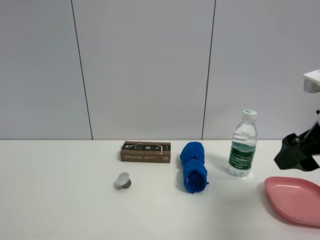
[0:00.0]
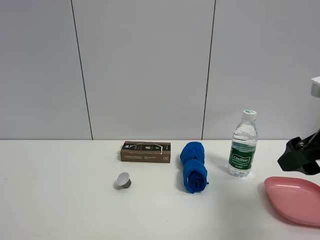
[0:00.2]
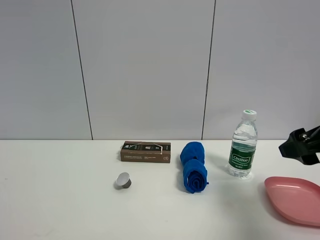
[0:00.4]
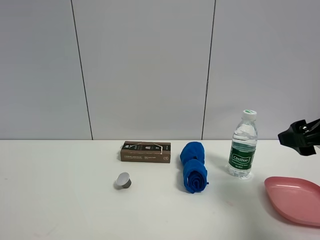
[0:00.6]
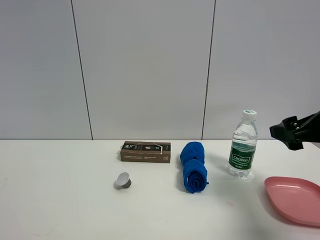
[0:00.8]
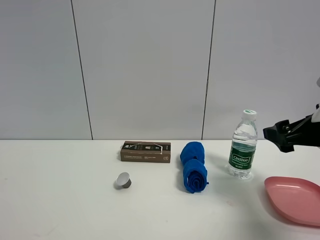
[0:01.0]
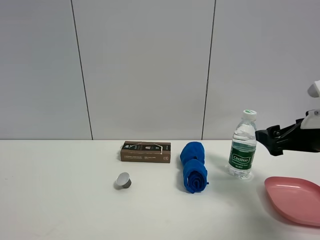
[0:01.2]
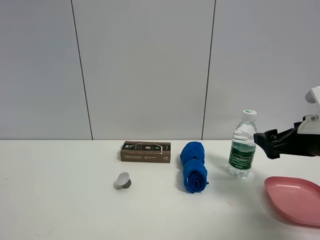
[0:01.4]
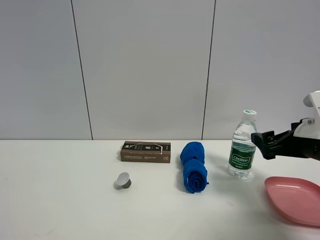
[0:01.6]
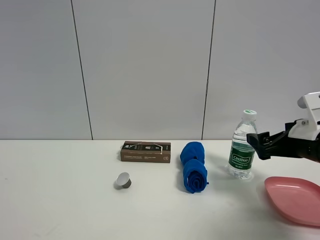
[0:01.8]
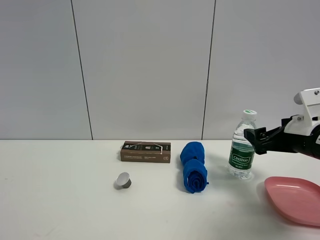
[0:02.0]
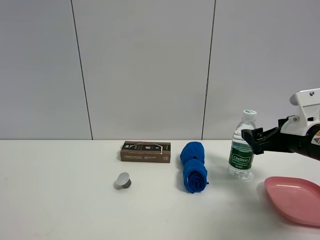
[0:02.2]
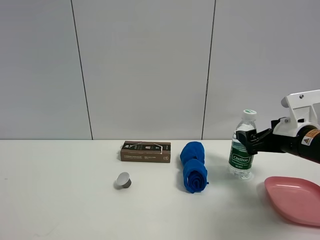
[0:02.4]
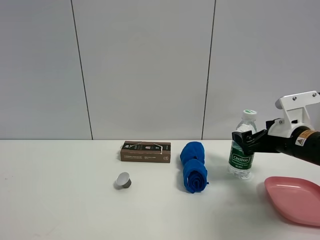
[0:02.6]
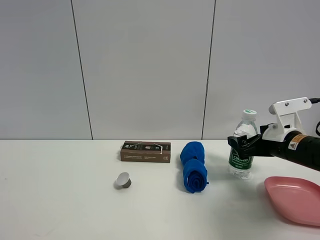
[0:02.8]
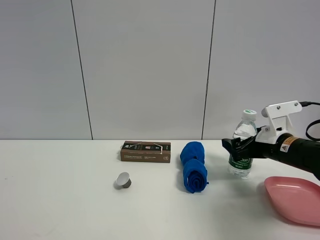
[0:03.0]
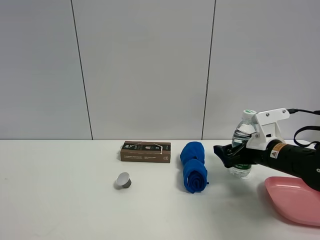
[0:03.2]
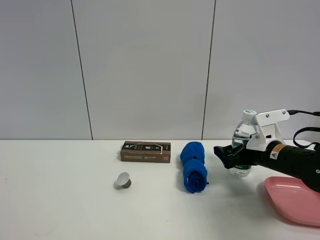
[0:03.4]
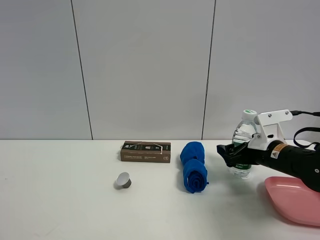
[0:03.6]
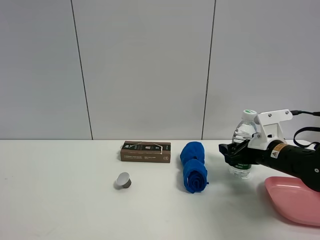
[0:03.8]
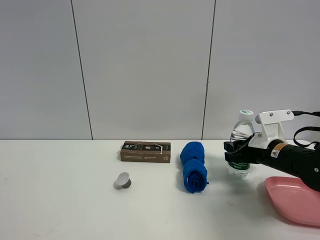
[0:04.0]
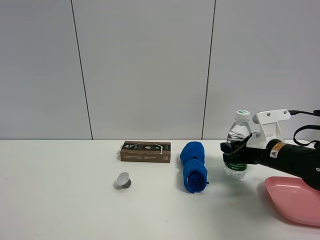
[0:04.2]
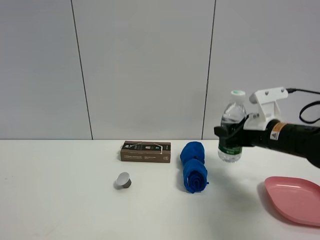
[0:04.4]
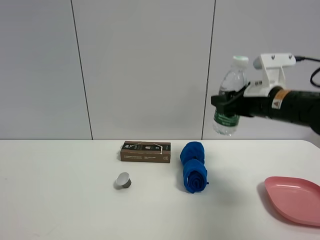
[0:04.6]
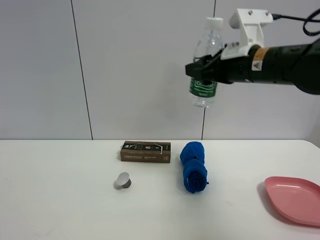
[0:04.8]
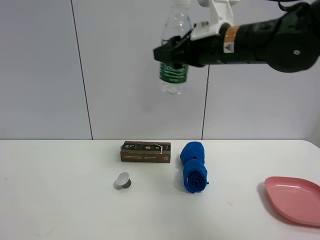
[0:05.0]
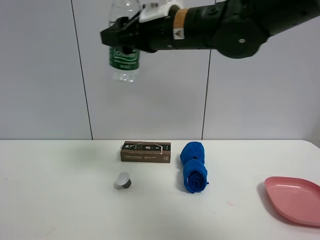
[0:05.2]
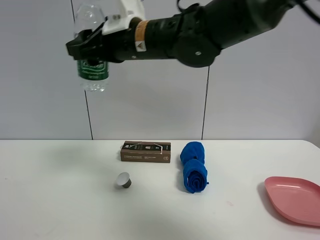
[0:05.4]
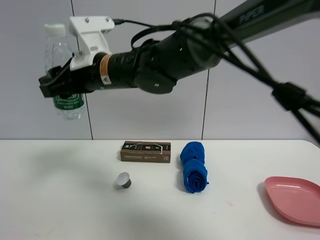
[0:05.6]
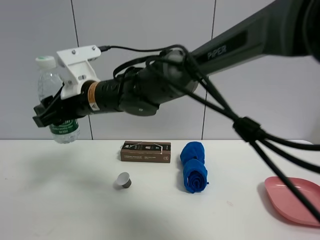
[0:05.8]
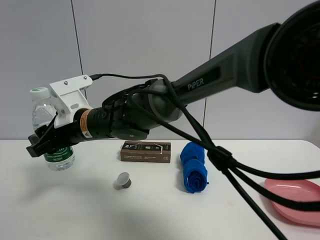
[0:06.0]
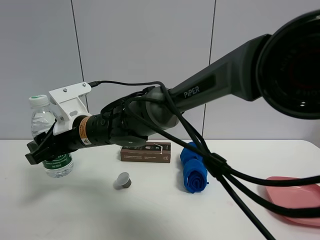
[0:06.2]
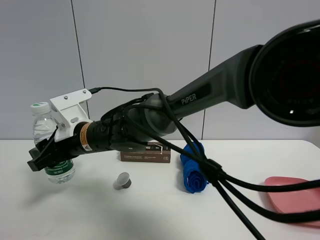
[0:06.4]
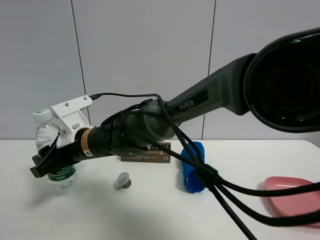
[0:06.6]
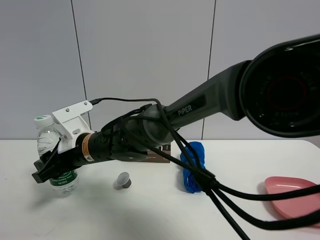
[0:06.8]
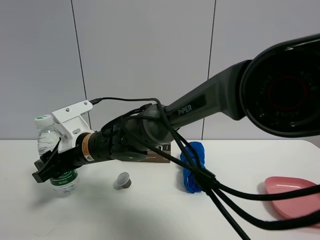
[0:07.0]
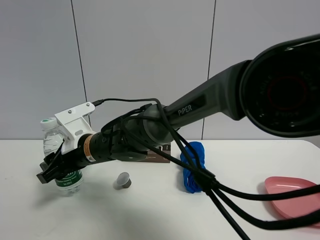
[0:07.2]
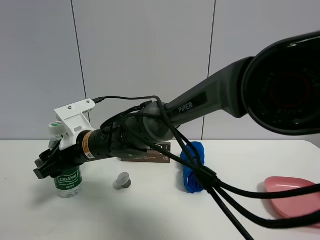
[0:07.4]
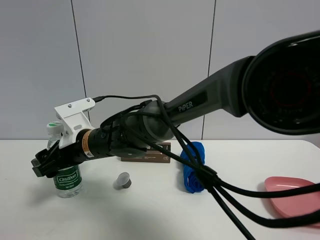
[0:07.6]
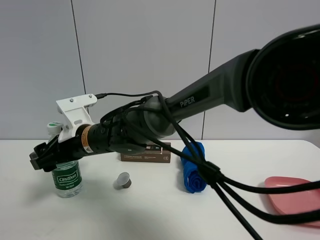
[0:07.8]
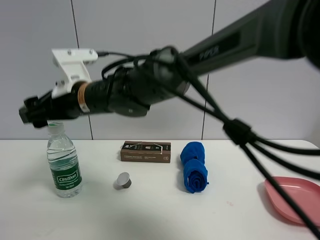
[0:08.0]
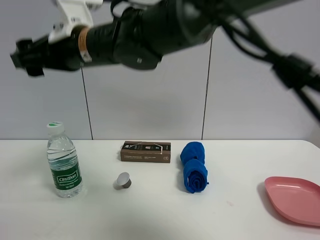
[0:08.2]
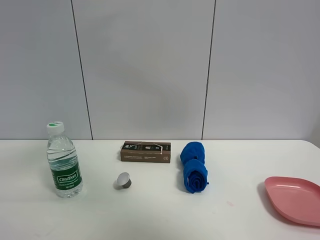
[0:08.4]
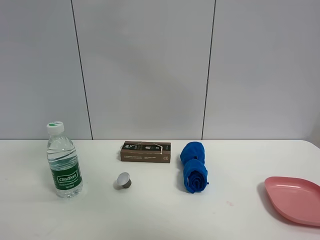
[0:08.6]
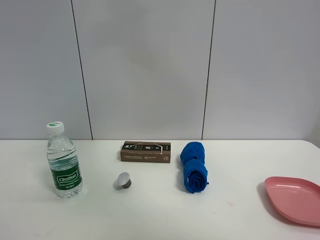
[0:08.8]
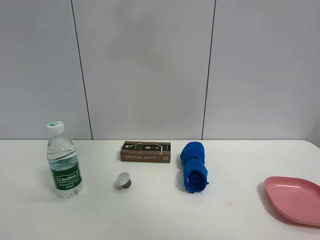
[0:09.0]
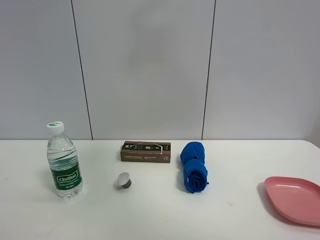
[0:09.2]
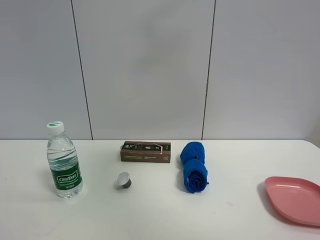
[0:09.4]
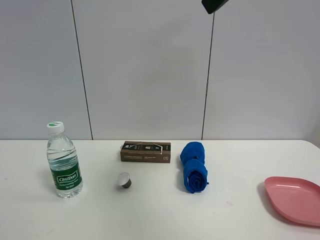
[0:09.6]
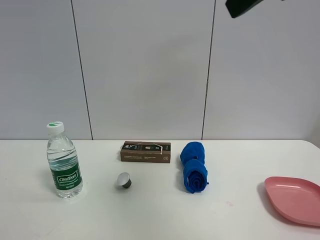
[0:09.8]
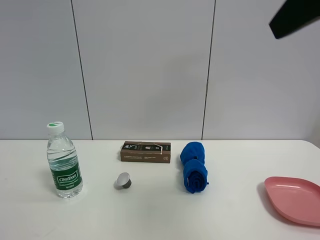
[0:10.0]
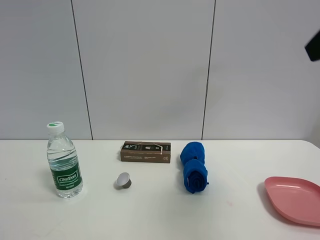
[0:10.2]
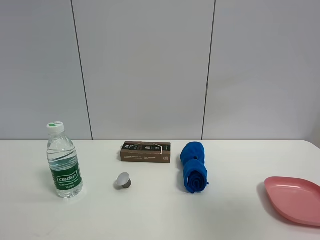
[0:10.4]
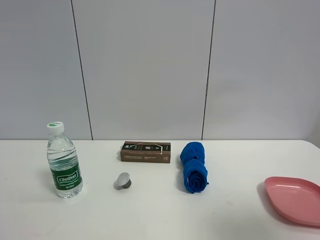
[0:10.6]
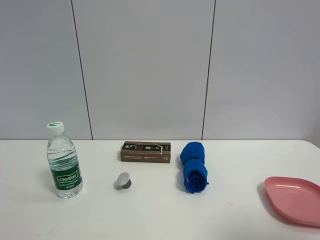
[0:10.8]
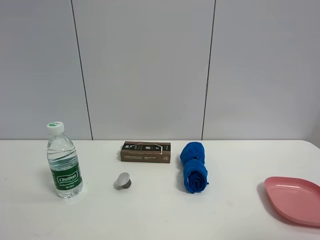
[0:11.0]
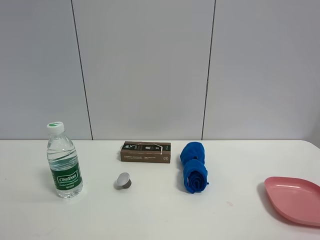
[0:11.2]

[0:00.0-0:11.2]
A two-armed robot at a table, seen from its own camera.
Task of the whole recording: the gripper move the object.
Step, 0:00.0 to 0:03.8: Grasp the YiBao mineral water with the right gripper.
Step, 0:04.0 to 0:07.8: Place the YiBao mineral water on the table with the right gripper.
0:00.0 to 0:01.6: The right gripper heads downward and forward, covering about 10 cm.
0:01.6 to 0:03.2: The right gripper goes roughly 10 cm forward and downward.
0:03.2 to 0:04.8: The right gripper travels upward and to the left by about 20 cm, and closes up.
0:04.8 to 0:06.4: The right gripper goes approximately 30 cm to the left.
0:06.4 to 0:08.0: The right gripper opens its fingers.
0:08.0 to 0:09.6: The right gripper heads upward, to the right and backward, covering approximately 40 cm.
0:09.6 to 0:11.2: The right gripper goes approximately 30 cm backward, to the right and downward.

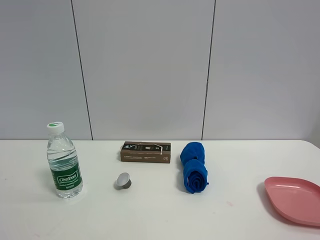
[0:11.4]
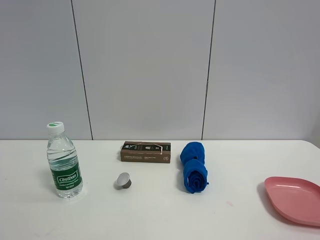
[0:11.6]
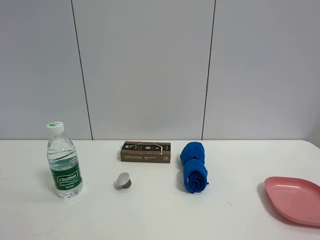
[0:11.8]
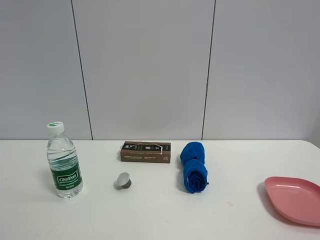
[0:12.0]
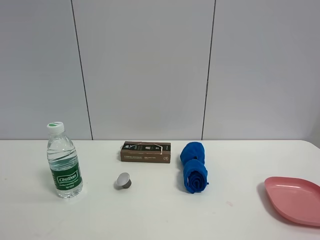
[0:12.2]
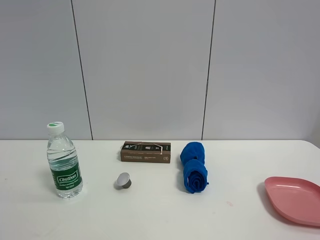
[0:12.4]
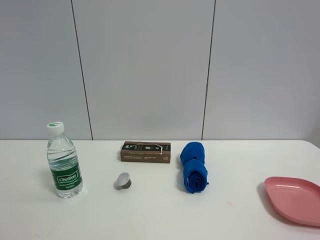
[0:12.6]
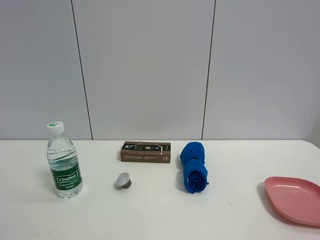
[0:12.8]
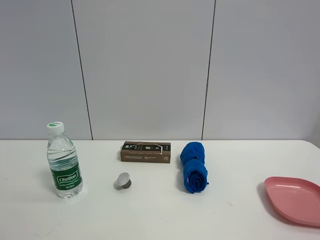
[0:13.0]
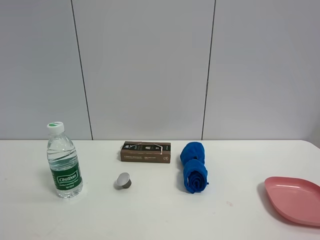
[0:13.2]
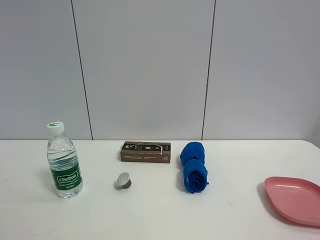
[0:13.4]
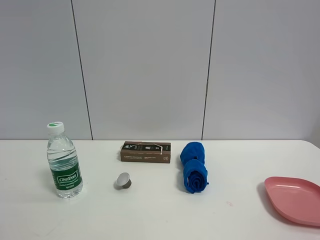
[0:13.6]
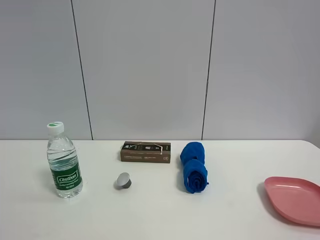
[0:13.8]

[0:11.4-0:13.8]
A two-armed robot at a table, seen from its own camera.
Task of the whole recording: the gripper move the object.
0:12.6 to 0:13.8: Both grippers stay about where they are.

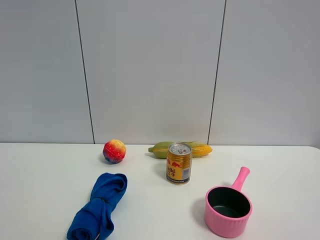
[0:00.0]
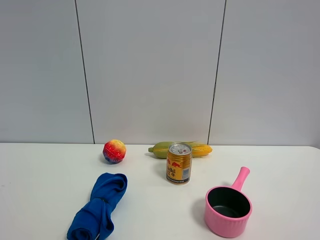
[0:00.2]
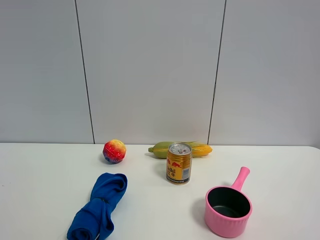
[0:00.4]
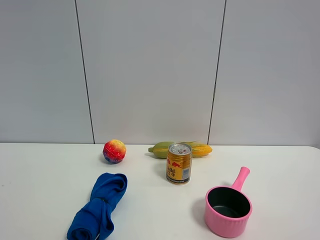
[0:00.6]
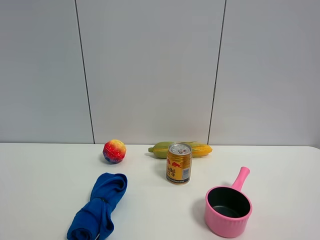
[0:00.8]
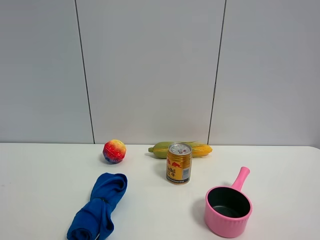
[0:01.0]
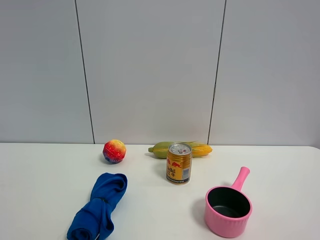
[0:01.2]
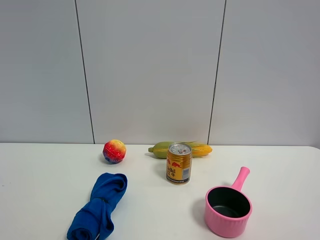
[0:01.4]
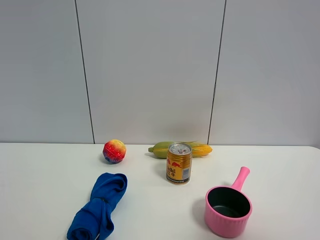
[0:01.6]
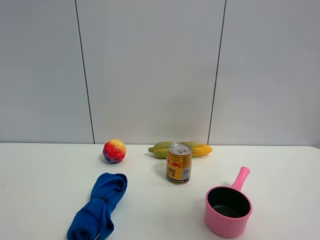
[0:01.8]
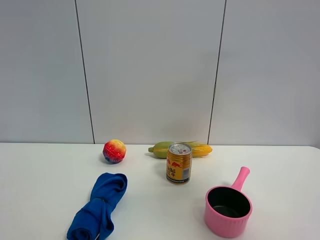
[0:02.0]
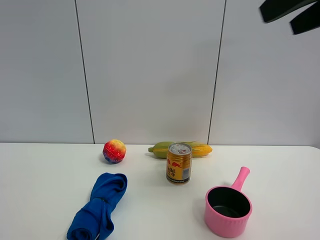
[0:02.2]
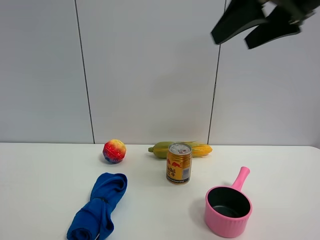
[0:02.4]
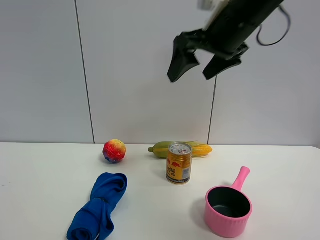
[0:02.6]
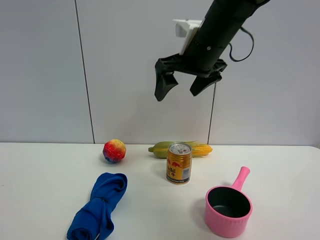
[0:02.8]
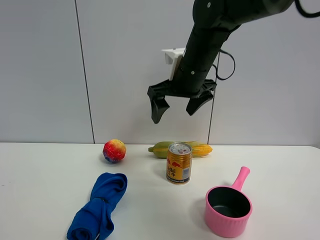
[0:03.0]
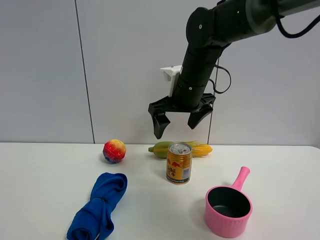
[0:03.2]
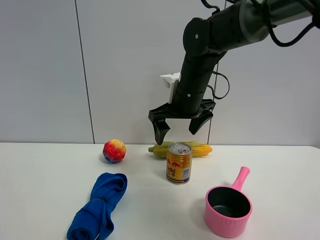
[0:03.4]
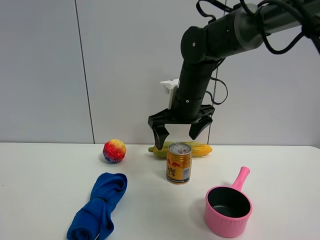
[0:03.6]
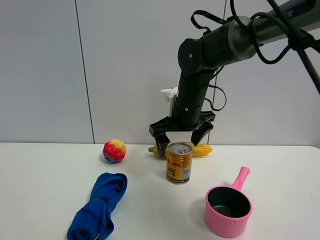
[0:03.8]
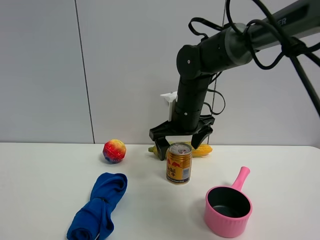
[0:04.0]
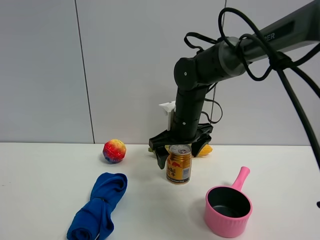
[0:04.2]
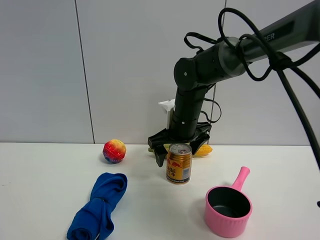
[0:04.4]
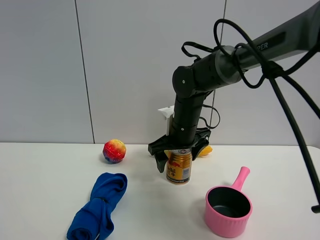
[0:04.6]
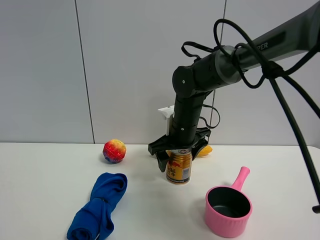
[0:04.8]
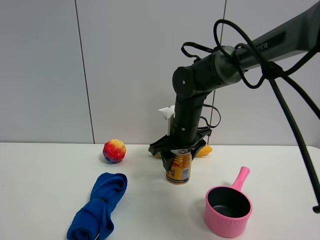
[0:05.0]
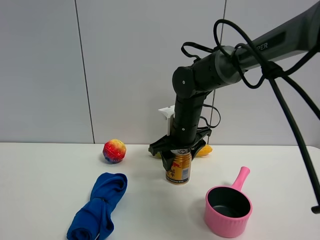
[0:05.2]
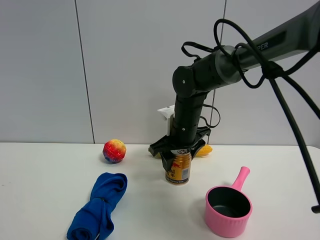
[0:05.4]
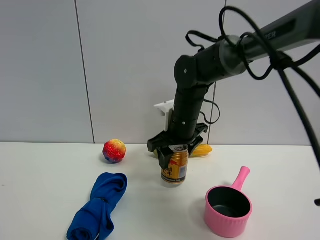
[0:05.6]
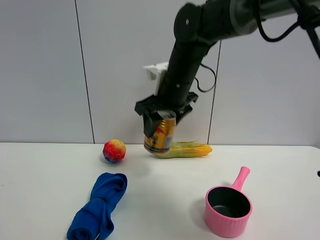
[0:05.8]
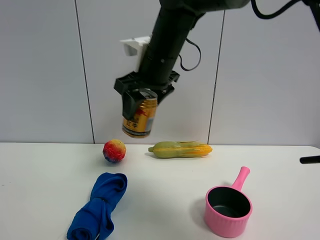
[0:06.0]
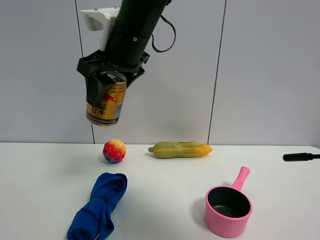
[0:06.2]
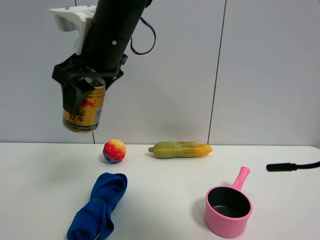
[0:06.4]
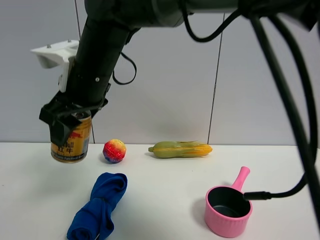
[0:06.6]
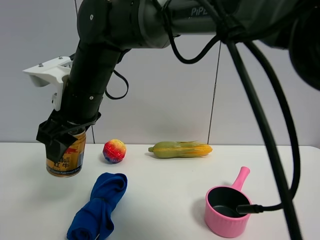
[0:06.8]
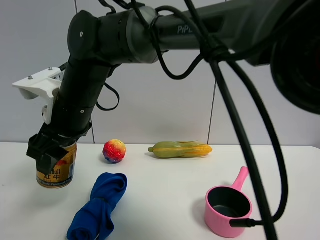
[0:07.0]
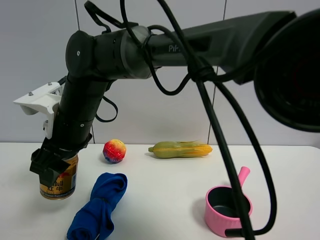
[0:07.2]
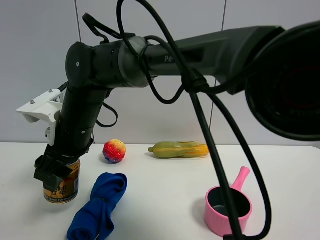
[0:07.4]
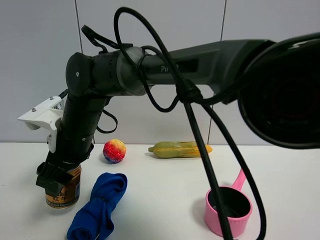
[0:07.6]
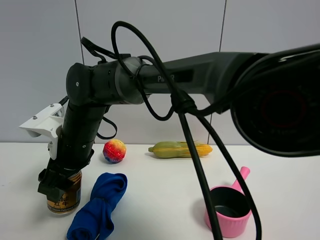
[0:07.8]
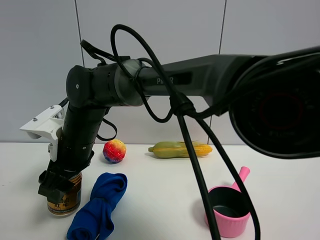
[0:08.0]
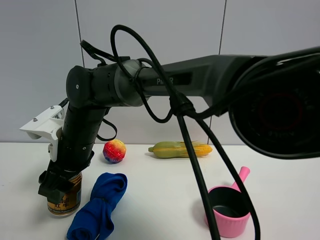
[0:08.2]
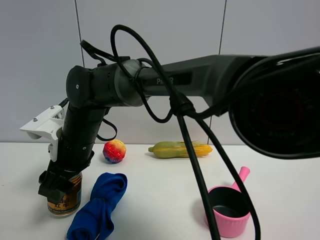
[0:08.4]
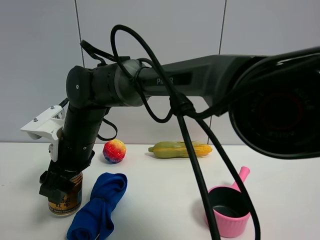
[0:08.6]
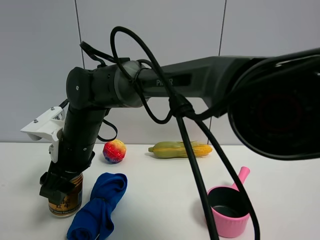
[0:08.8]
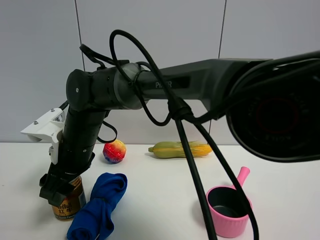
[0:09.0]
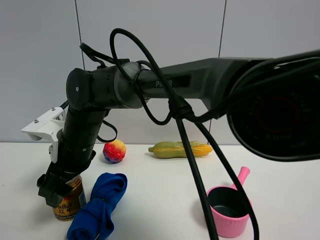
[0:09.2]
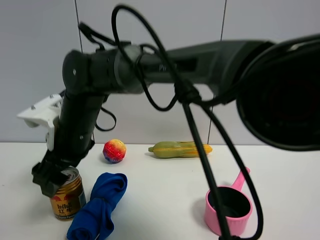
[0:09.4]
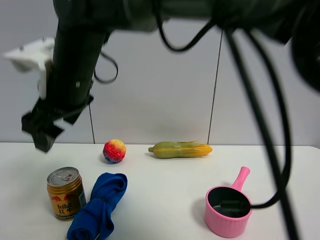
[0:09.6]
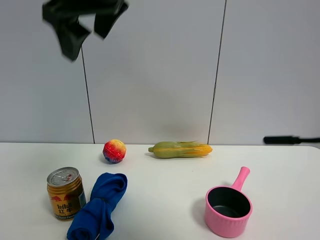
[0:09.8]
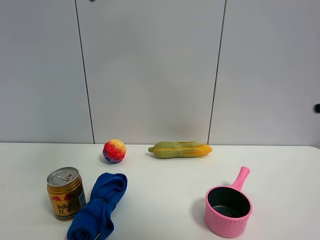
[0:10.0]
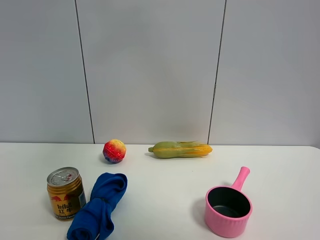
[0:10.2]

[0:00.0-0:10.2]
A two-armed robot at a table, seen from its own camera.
Task of the whole recording: the gripper move the object.
Step, 0:00.0 to 0:04.8: Grasp the red bull with the right gripper.
Step, 0:05.0 to 0:09.4: Place the red bull on the table with the right gripper.
0:01.4 to 0:03.0: The right gripper shifts about 40 cm forward and to the left, and opens.
0:03.0 to 0:04.4: The right gripper is displaced downward by some 10 cm.
0:04.4 to 0:05.8: The right gripper shifts about 10 cm upward, and closes.
0:05.8 to 0:07.2: The right gripper heads to the left and backward, covering some 20 cm.
0:08.8 to 0:10.2: The right gripper goes some 35 cm upward and to the right, and opens up.
